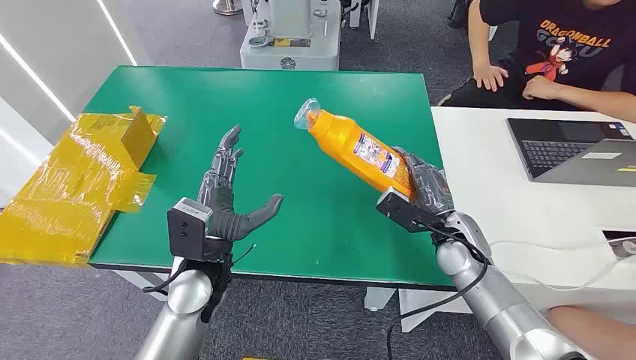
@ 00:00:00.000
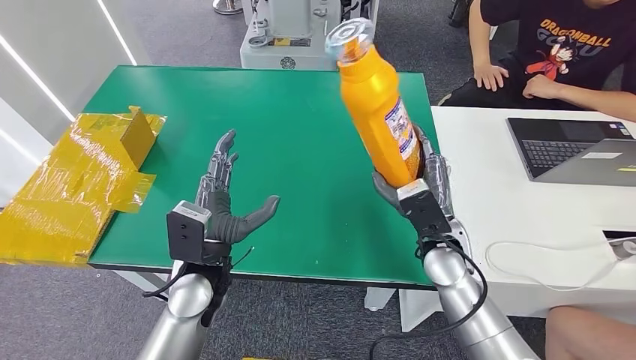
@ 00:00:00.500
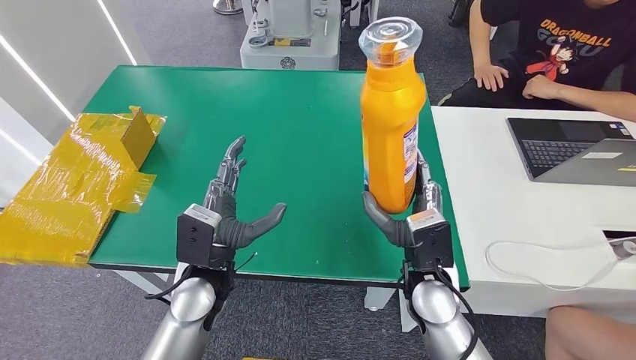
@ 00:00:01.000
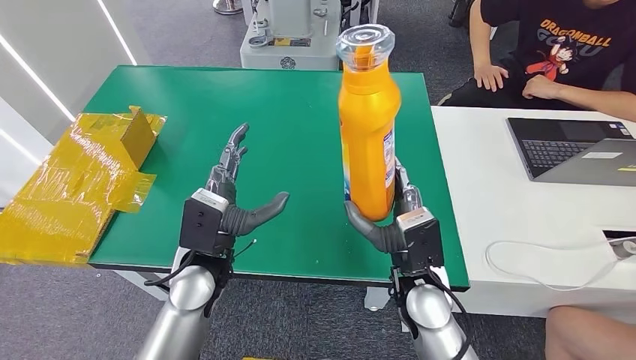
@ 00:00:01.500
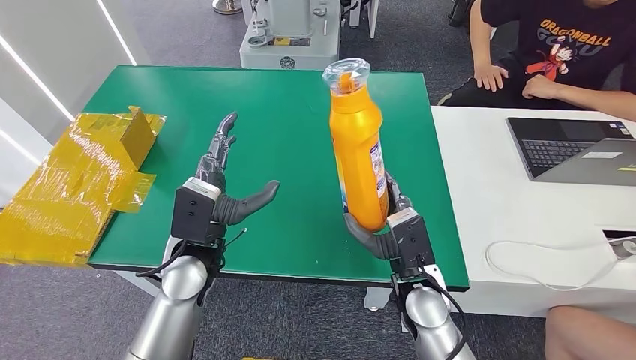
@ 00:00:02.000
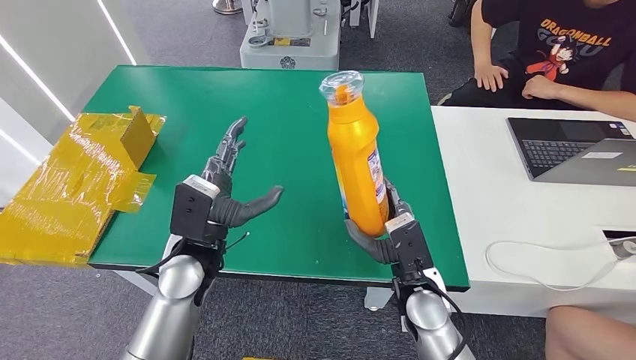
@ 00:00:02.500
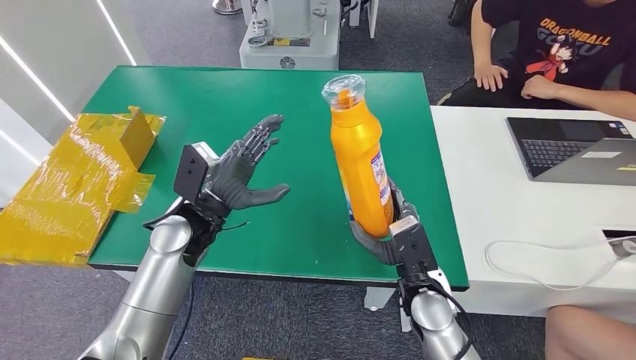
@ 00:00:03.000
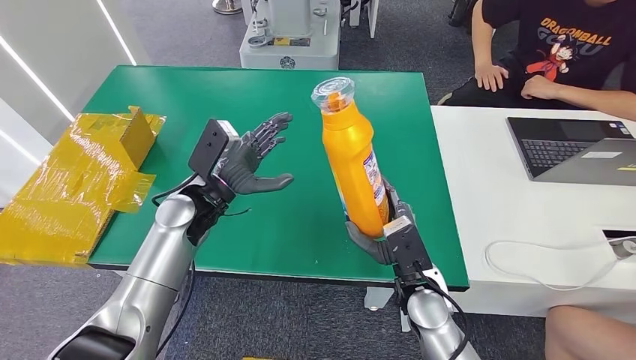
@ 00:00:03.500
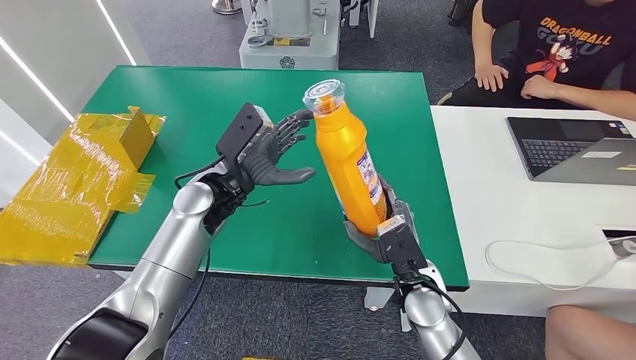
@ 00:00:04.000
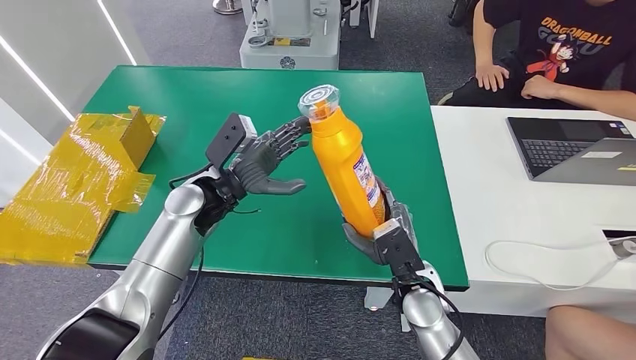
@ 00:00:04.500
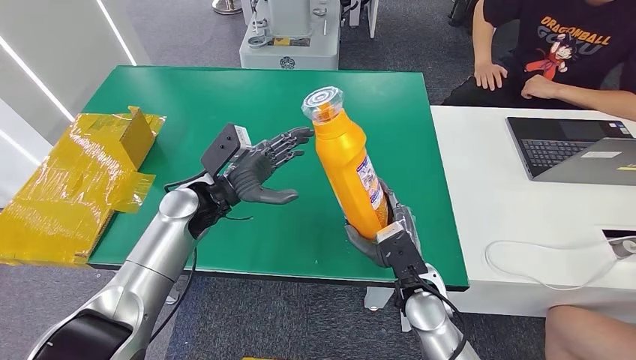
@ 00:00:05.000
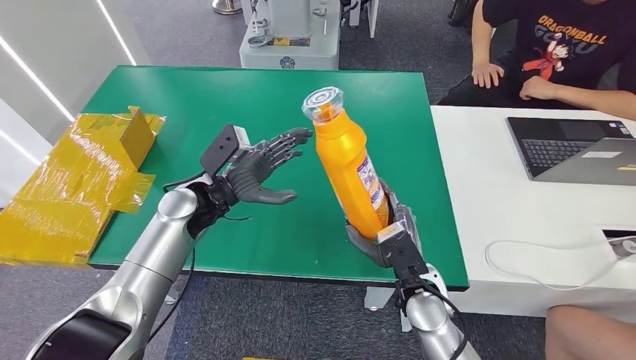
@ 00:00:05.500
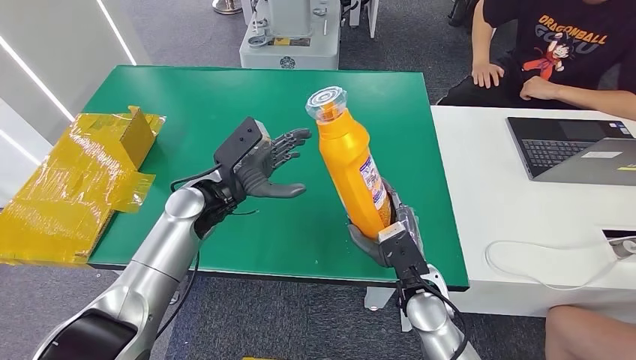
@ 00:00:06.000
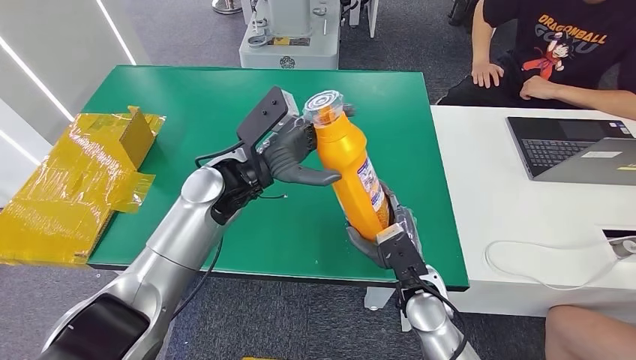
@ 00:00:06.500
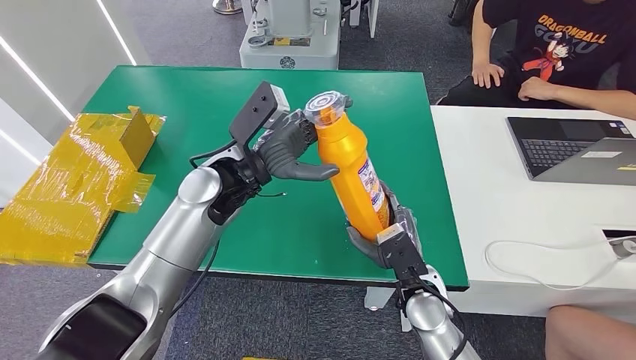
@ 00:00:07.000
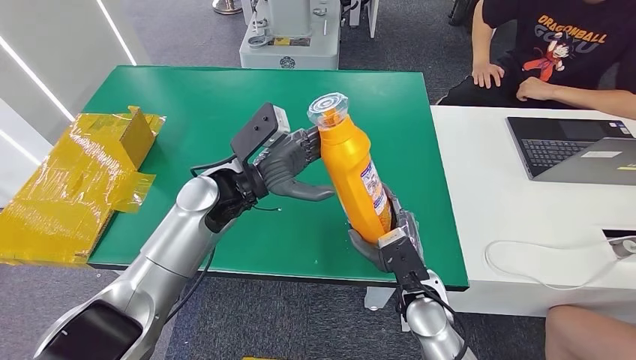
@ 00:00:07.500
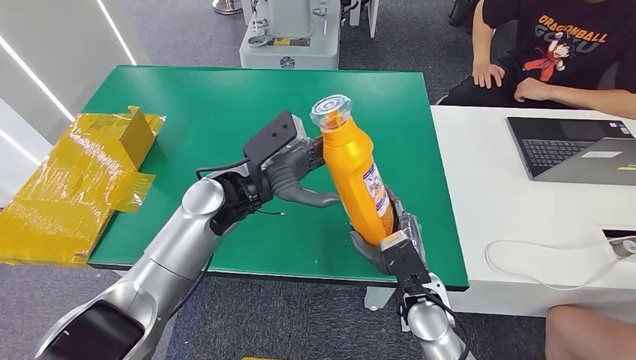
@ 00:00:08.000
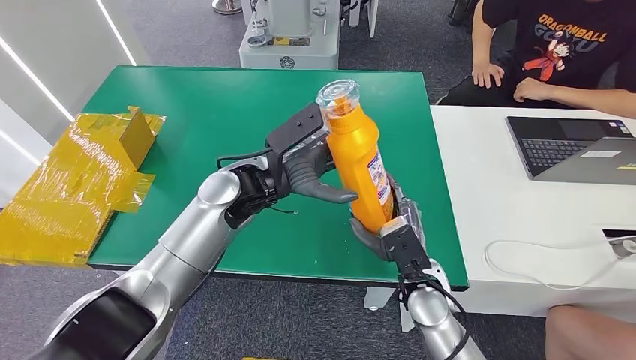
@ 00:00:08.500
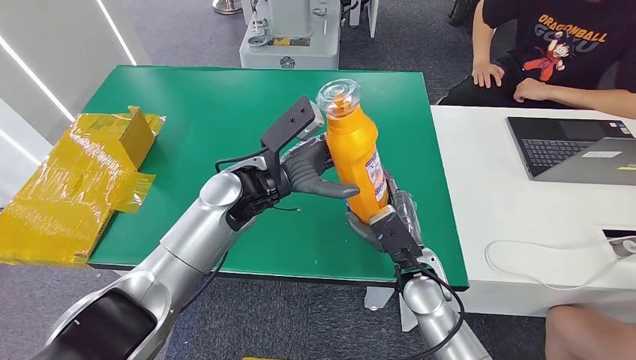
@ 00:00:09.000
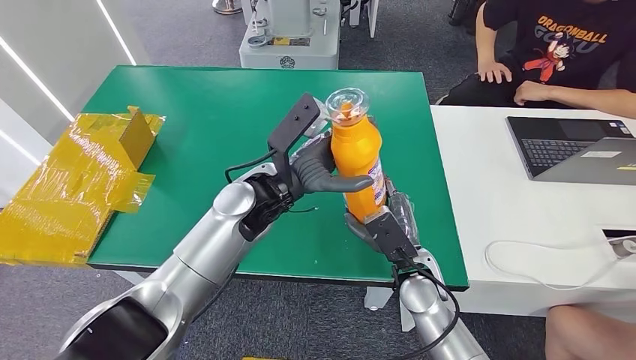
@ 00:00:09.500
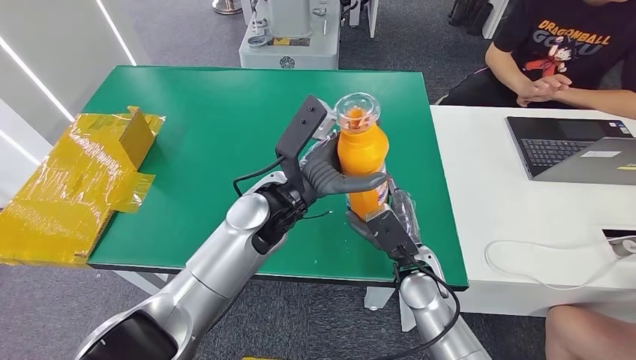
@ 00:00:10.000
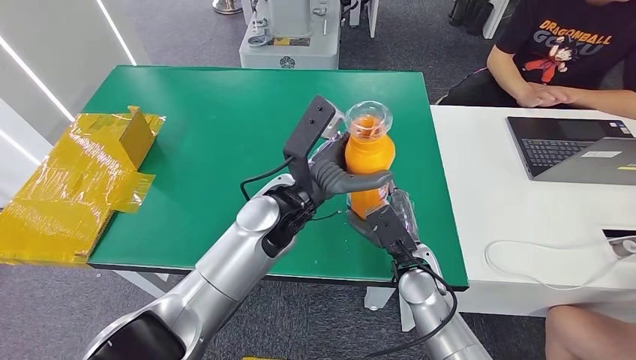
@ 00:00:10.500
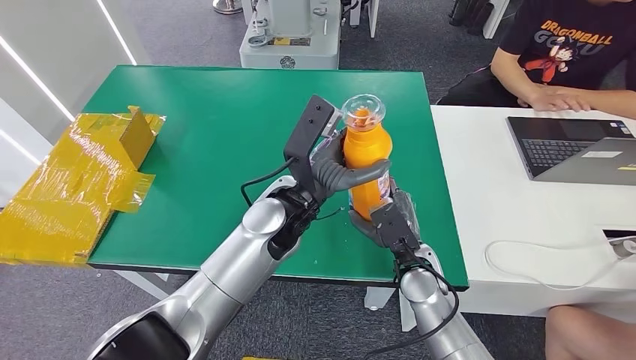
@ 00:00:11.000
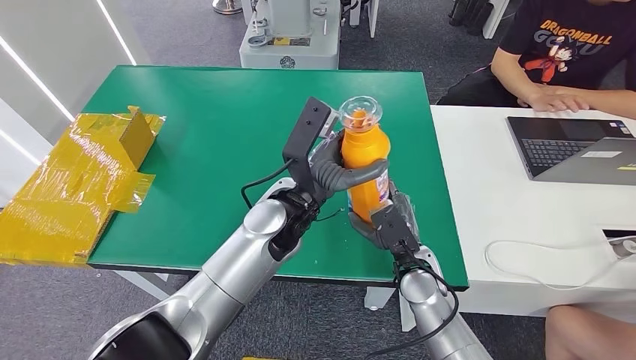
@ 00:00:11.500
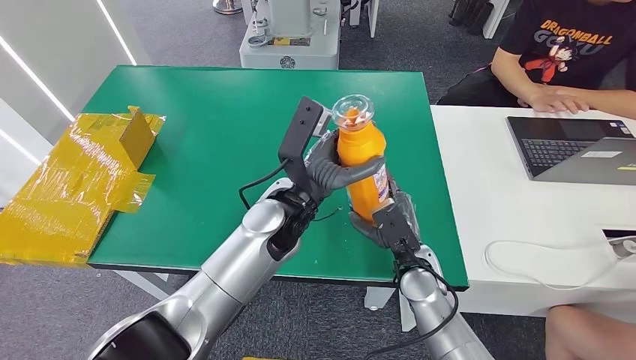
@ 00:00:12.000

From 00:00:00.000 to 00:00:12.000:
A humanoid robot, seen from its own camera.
Step, from 00:00:00.000 to 00:00:02.000: Pick up the bottle from the table.
From 00:00:02.000 to 00:00:04.000: The left hand goes about 10 cm forward.
From 00:00:04.000 to 00:00:06.000: The hands make only small movements.
From 00:00:06.000 to 00:00:08.000: The left hand is displaced to the right by about 5 cm.
From 00:00:08.000 to 00:00:10.000: The left hand is displaced to the right by roughly 10 cm.
From 00:00:10.000 to 00:00:12.000: The hands move only a little.

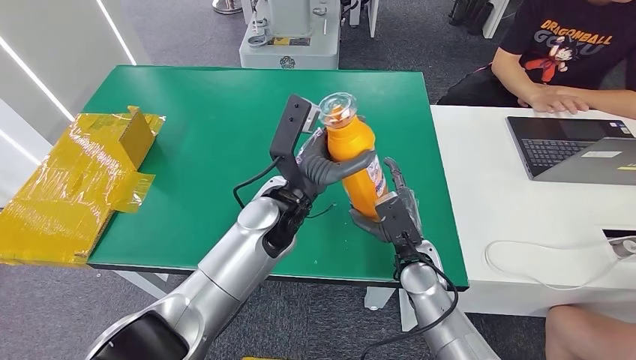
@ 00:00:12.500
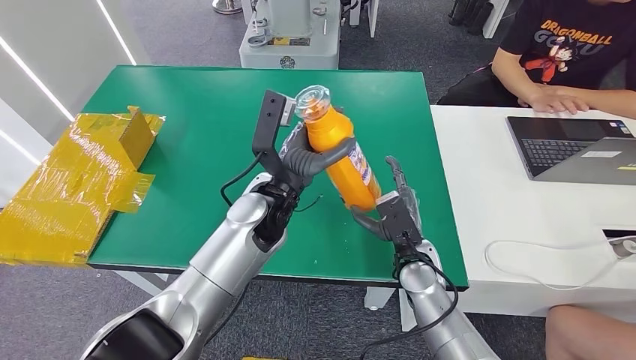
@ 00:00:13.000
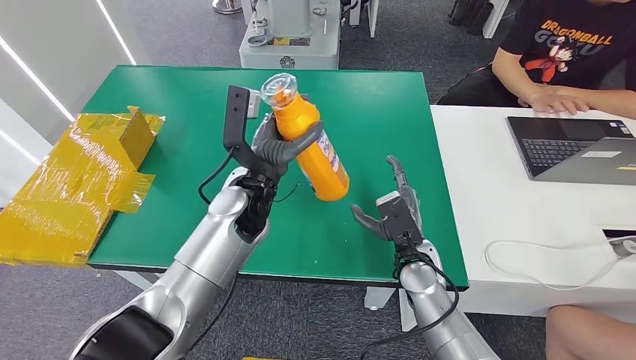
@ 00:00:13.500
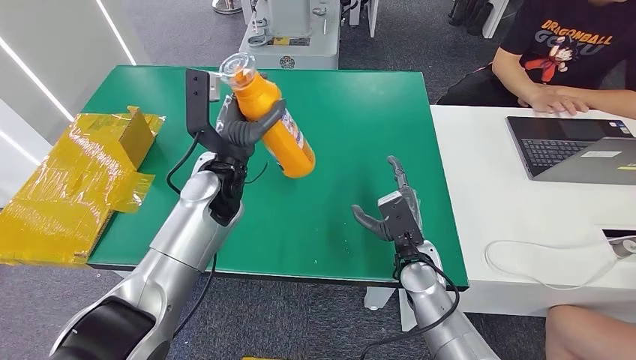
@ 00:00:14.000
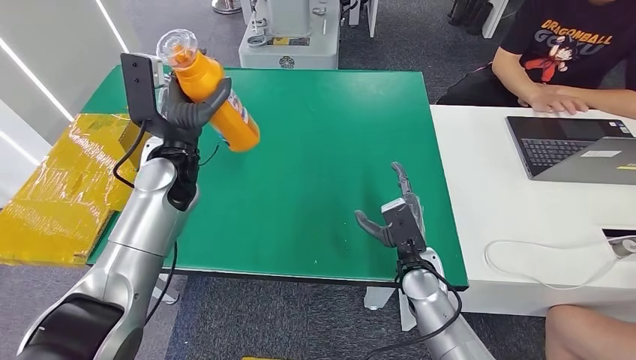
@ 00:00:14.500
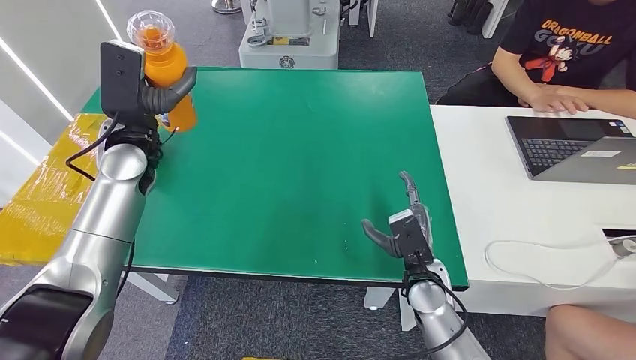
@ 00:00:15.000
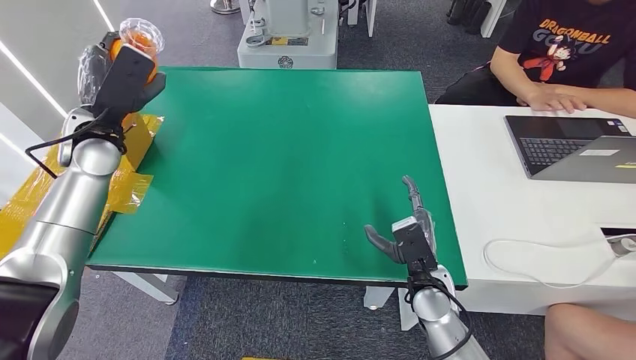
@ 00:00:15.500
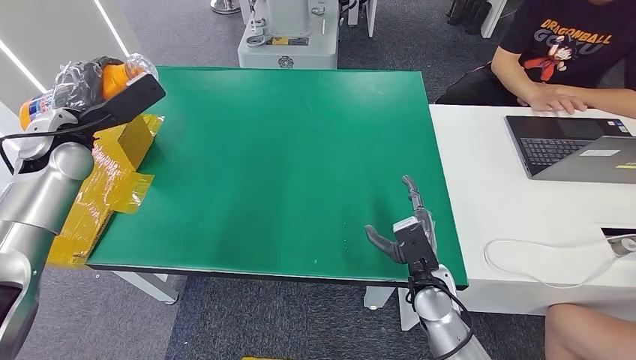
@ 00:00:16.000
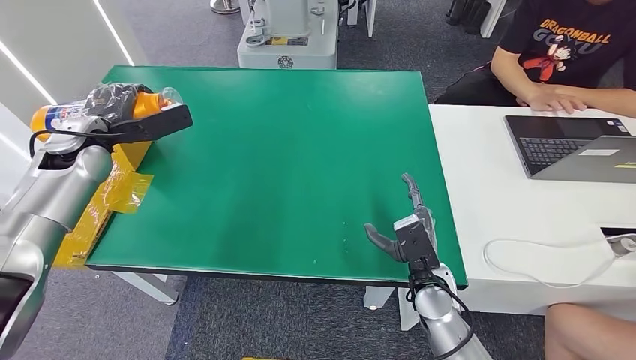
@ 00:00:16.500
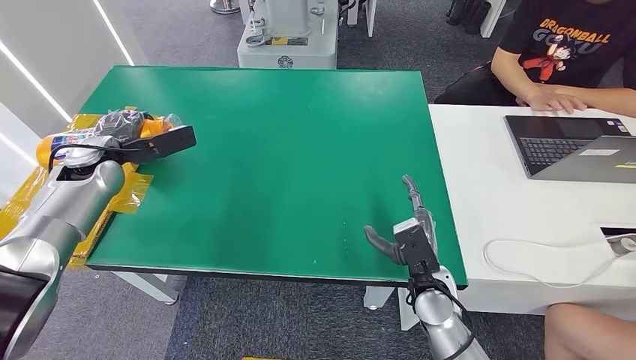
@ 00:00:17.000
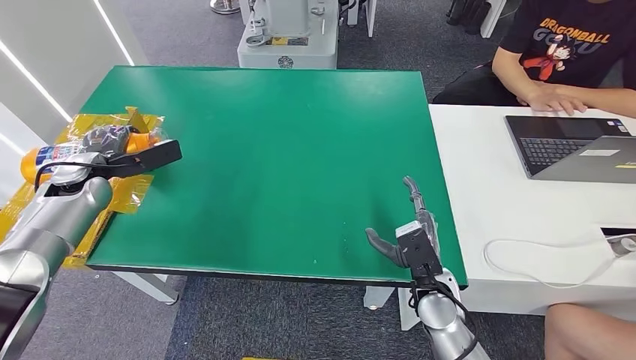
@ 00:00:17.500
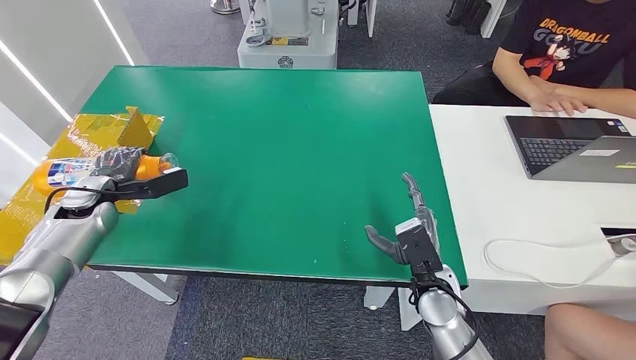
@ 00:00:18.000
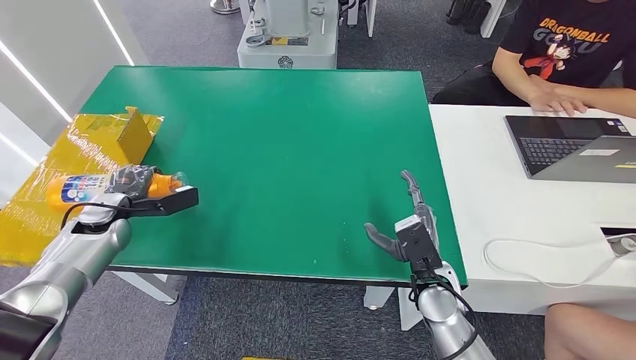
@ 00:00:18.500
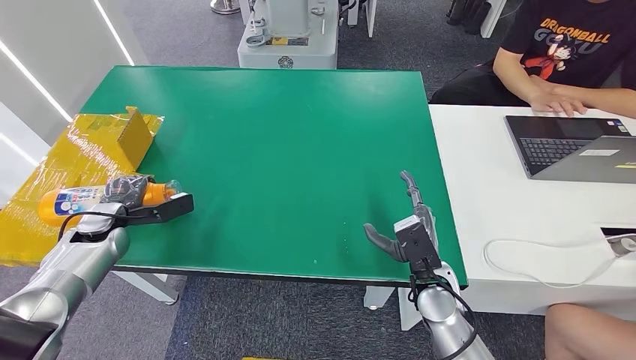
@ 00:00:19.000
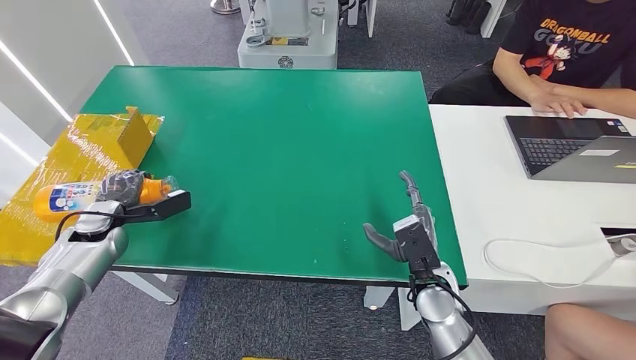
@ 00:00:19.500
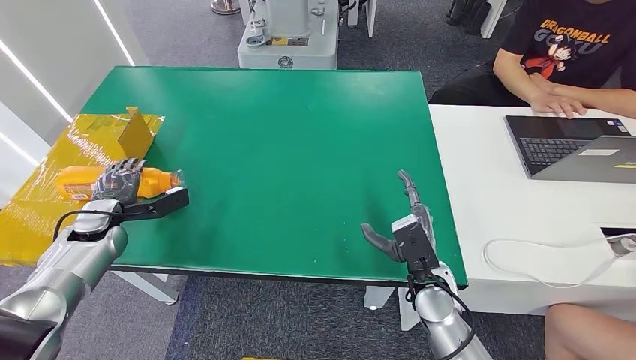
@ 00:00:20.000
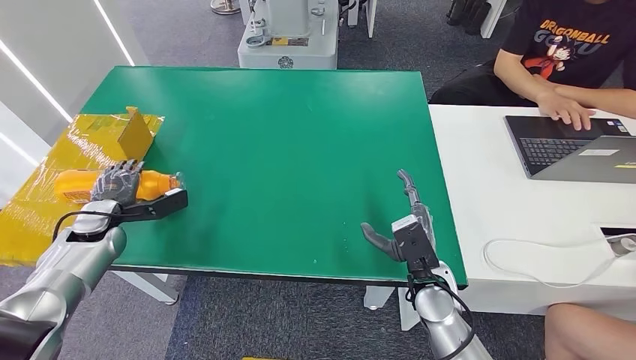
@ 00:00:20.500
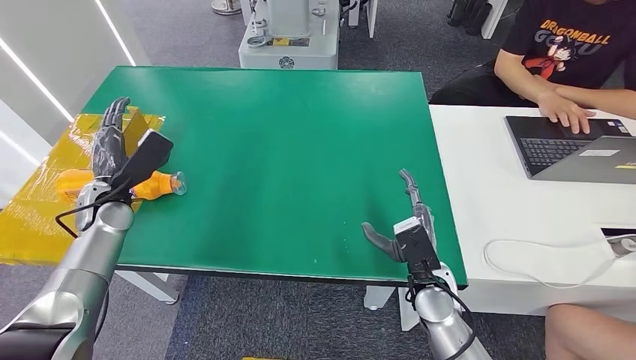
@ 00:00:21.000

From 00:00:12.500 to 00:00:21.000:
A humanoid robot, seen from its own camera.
Step, from 00:00:12.500 to 00:00:21.000: Turn the bottle to the front side.
From 00:00:16.500 to 00:00:19.000: The left hand heads downward and backward, covering roughly 20 cm.
From 00:00:19.000 to 00:00:21.000: The left hand is displaced to the right by roughly 5 cm.
